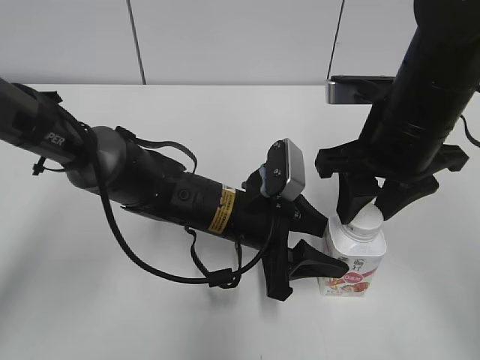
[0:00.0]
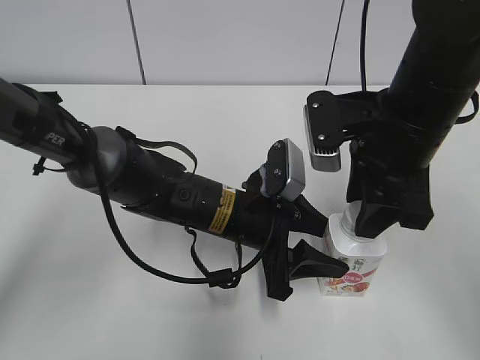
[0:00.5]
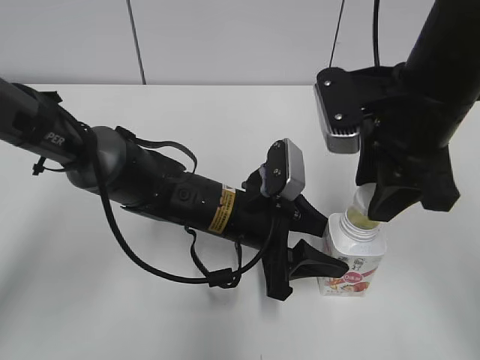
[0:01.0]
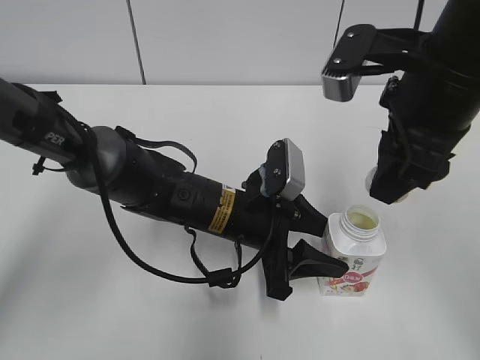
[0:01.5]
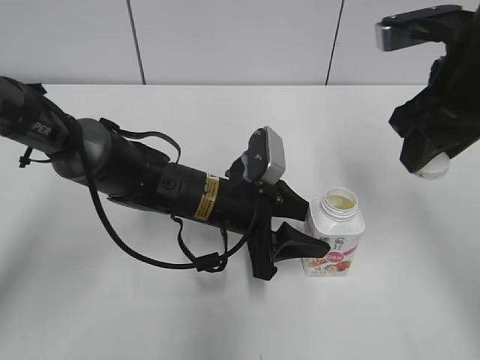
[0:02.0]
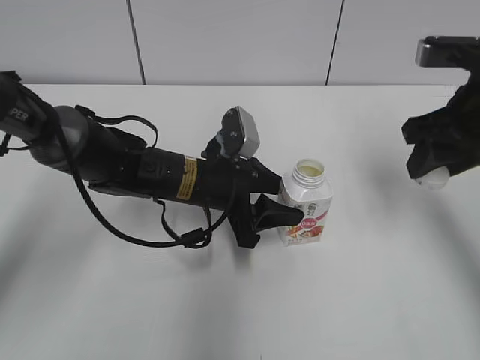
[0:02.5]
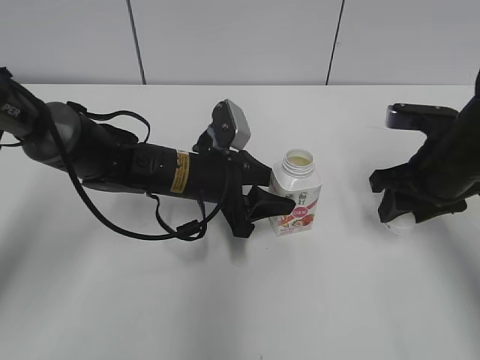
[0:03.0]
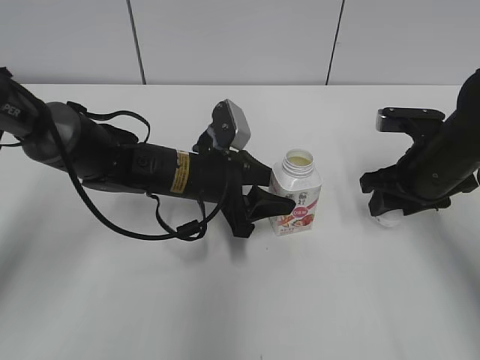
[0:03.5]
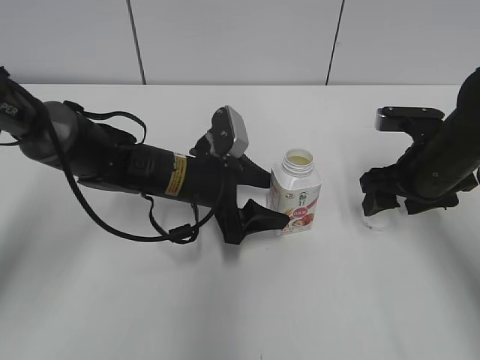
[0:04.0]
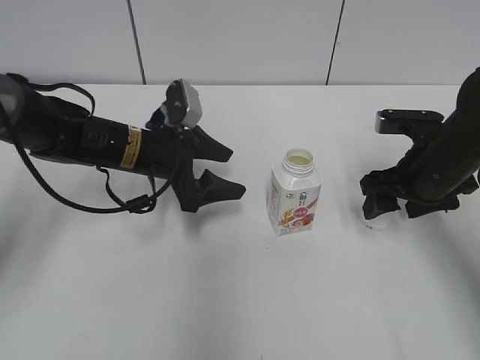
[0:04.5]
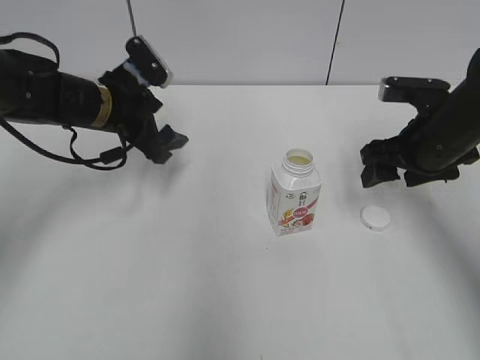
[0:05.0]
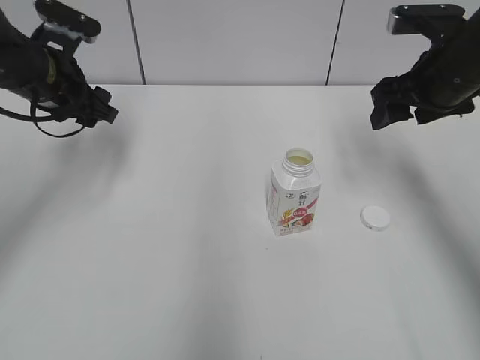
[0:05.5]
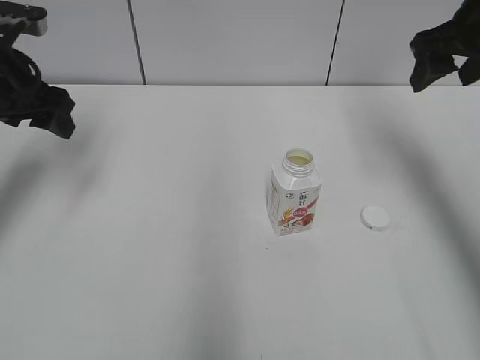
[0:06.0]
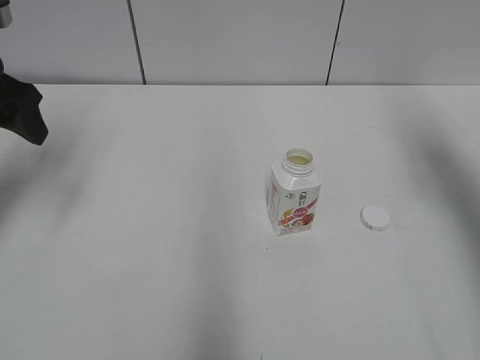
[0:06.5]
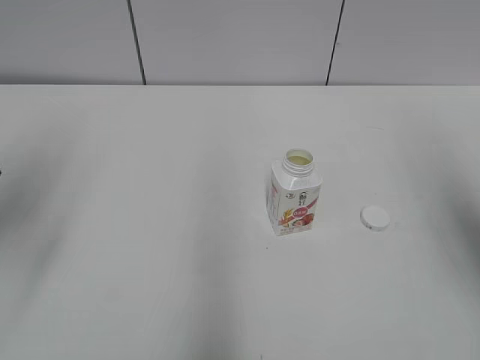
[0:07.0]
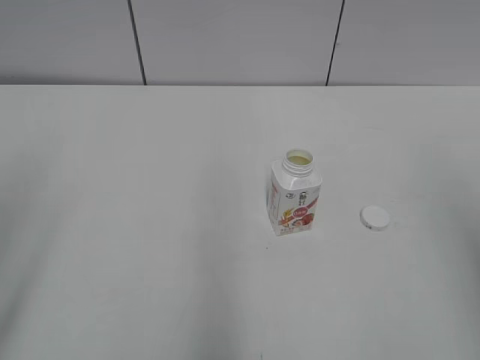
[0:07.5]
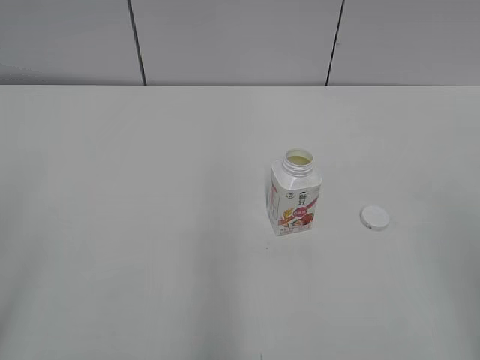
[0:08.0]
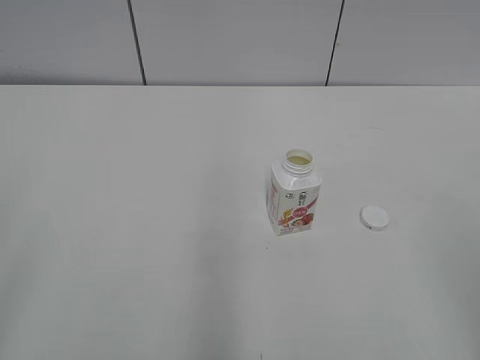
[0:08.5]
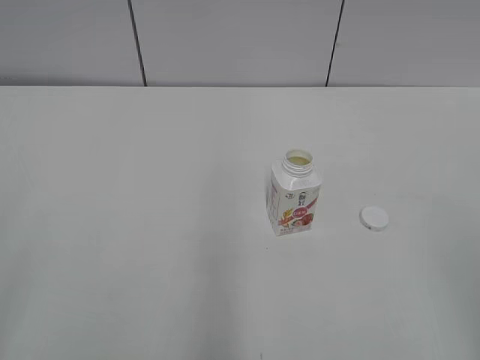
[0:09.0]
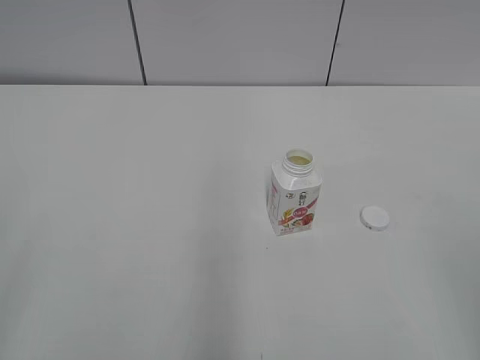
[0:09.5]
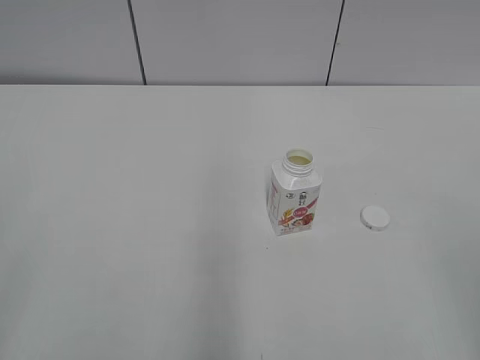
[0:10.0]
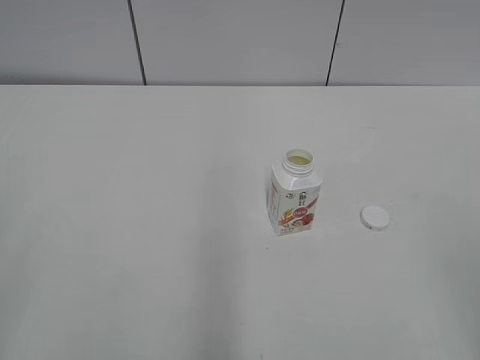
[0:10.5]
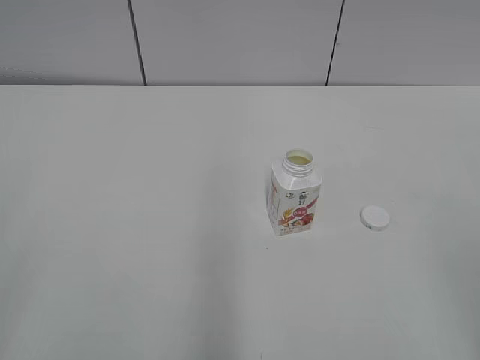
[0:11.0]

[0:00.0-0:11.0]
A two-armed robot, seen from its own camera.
Step, 0:01.0 to 0:03.5: Place the bottle cap on the right.
0:00.0 to 0:02.0: The right gripper goes approximately 5 cm upward.
0:02.0 to 0:03.5: The right gripper moves downward, about 15 cm, while the left gripper changes place by some 5 cm.
0:03.5 to 0:05.5: The left gripper travels to the left and upward by some 20 cm, and opens its fingers, while the right gripper moves upward, roughly 10 cm, and opens up.
0:05.5 to 0:07.5: The left gripper moves backward, about 30 cm. The right gripper travels backward and upward by approximately 30 cm.
0:09.0 to 0:11.0: The two grippers keep their place.
